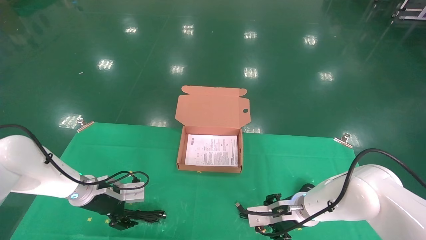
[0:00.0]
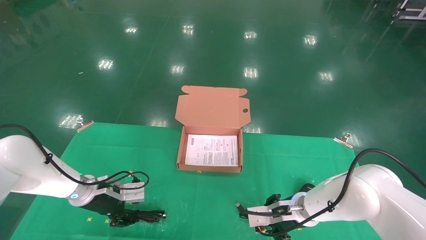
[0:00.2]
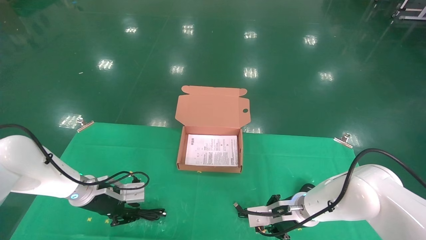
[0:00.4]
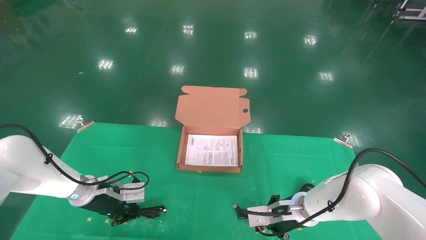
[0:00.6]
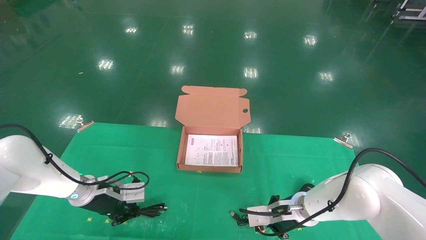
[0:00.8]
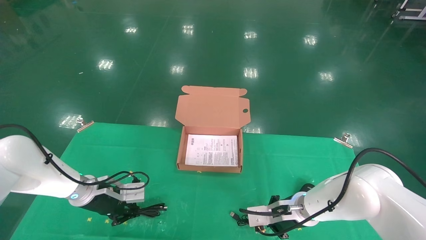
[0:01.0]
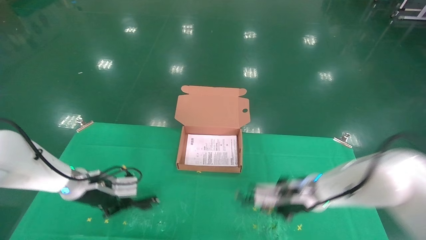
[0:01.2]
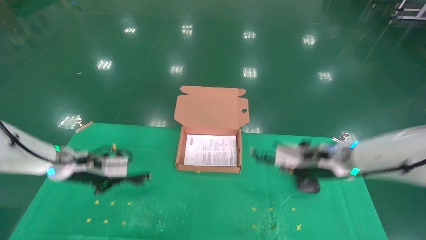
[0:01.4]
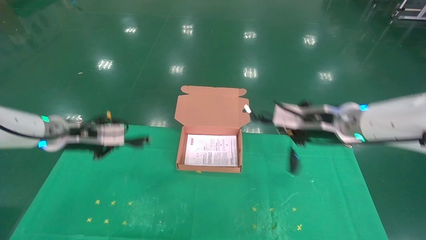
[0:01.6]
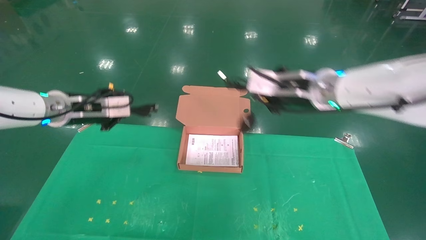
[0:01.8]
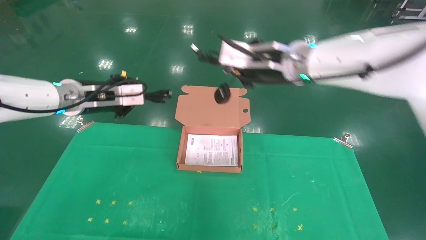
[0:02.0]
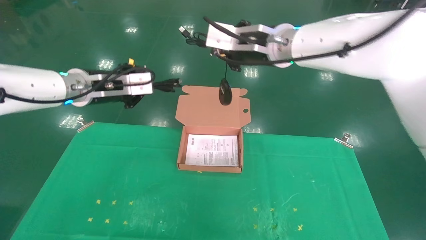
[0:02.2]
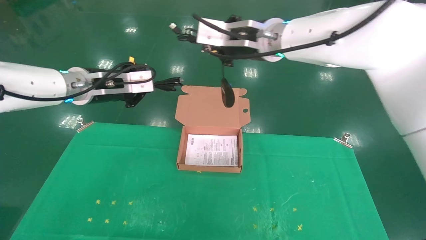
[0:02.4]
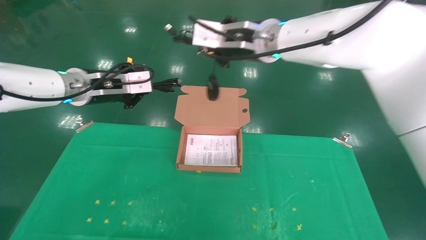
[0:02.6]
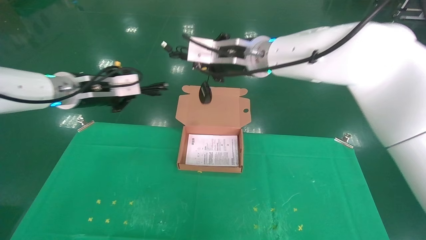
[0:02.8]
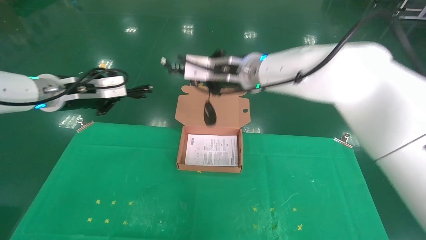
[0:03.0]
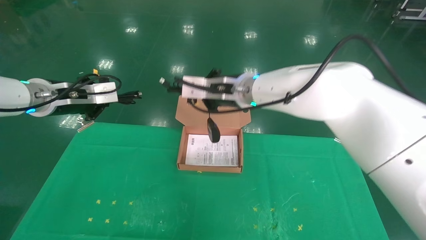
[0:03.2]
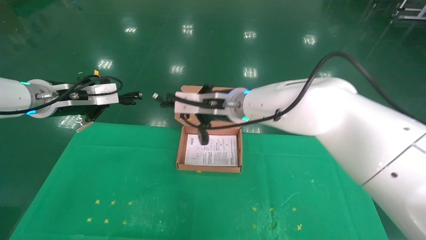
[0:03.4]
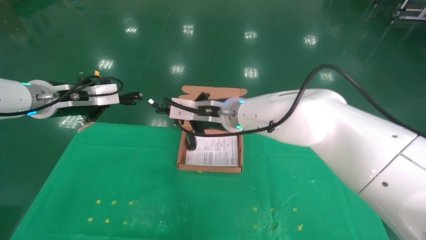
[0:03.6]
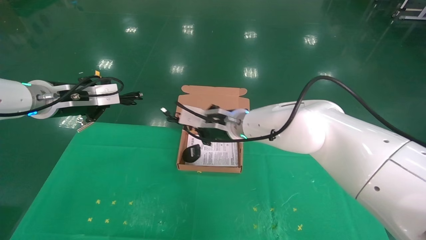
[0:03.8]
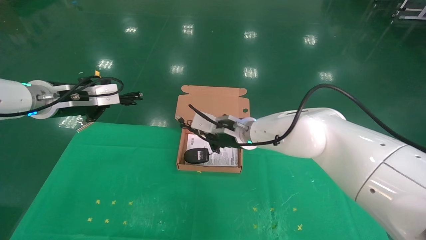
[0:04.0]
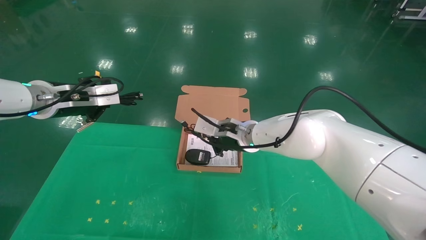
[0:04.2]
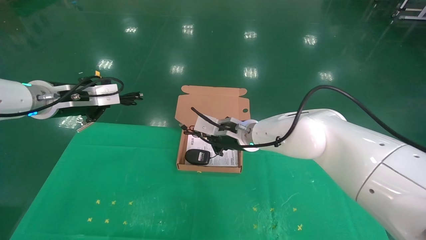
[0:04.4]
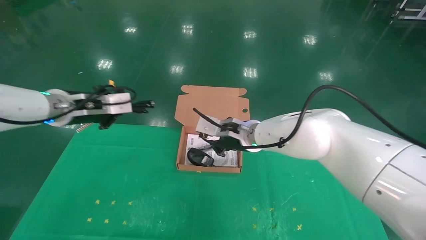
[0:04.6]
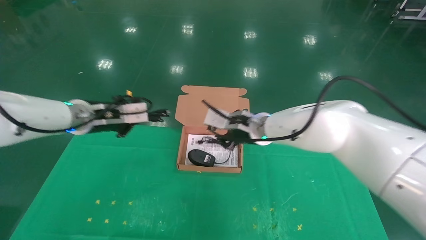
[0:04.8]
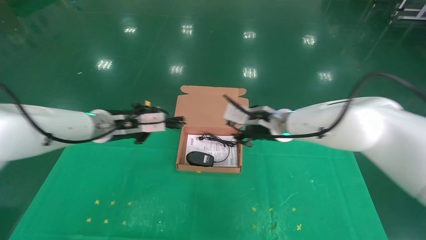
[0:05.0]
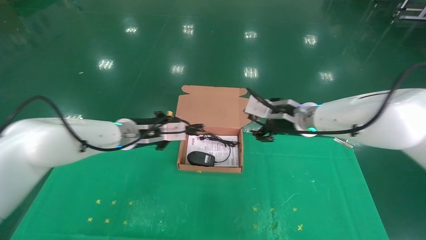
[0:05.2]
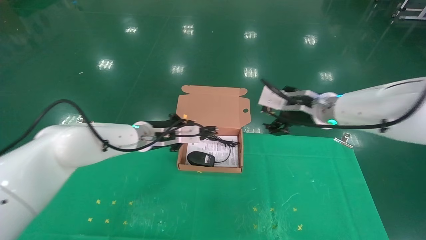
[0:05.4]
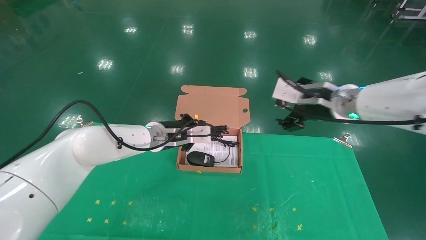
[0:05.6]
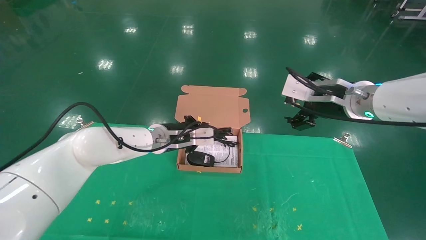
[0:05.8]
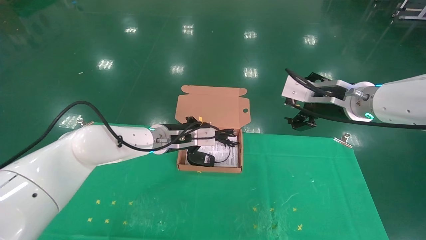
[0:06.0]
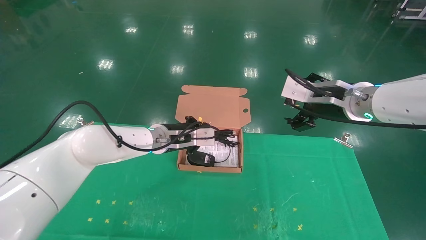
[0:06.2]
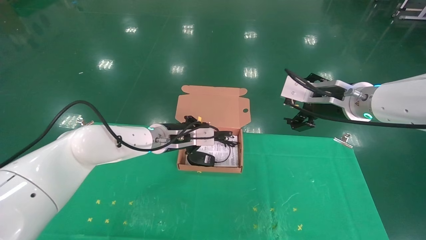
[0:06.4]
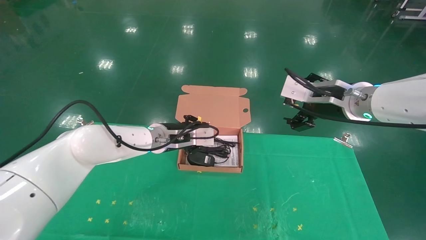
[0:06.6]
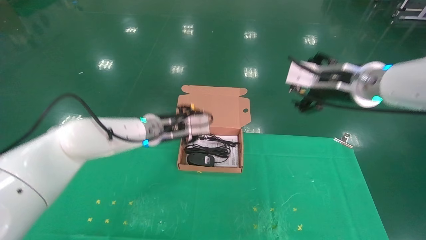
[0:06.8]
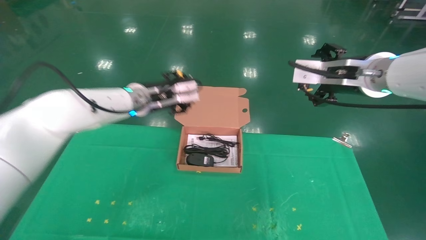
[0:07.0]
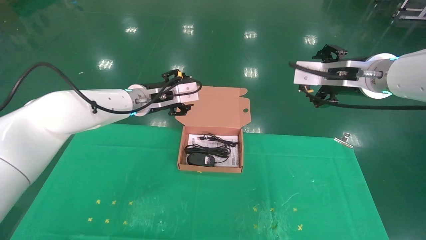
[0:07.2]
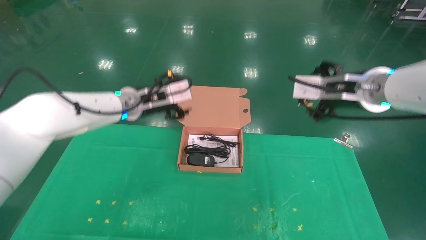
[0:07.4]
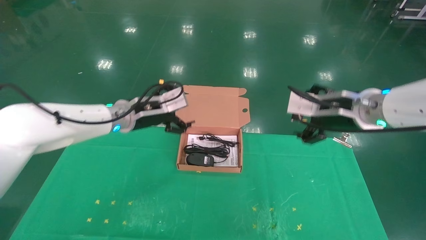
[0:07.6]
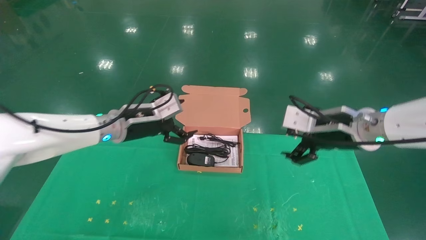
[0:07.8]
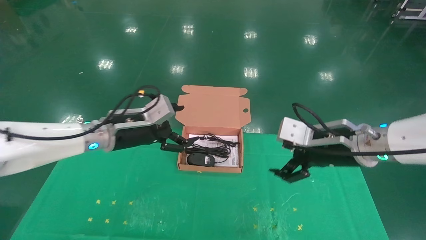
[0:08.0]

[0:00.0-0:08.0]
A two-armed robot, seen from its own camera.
Task of the whole recording: grasp data cable left put into box grasp mouse right put into box.
Step, 0:01.6 to 0:06.4: Place the mouse and power cord into the box.
0:00.0 to 0:01.6: The grippers both shift upward by approximately 20 cm. The right gripper closes up, while the left gripper closes its fingers.
0:01.6 to 0:03.2: The left gripper goes approximately 10 cm upward; the right gripper moves to the left, roughly 15 cm.
0:03.2 to 0:04.8: The left gripper is displaced to the right and downward by about 10 cm; the right gripper shifts approximately 10 cm downward and to the right.
0:04.8 to 0:06.4: The right gripper goes about 20 cm to the right, upward and backward, and opens. The left gripper is displaced to the right and downward by approximately 15 cm.
0:06.4 to 0:08.0: The right gripper heads downward, covering approximately 5 cm. The left gripper is displaced to the left and backward by approximately 10 cm, and opens its fingers.
